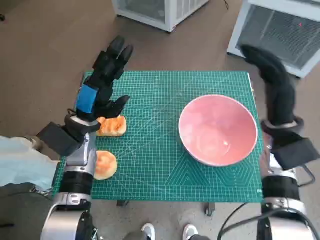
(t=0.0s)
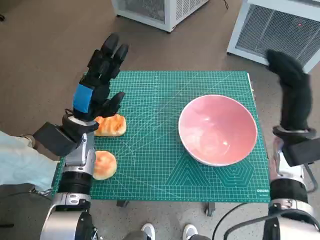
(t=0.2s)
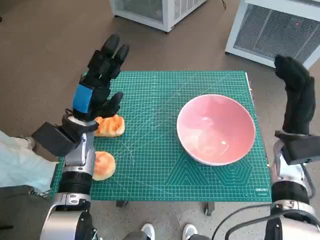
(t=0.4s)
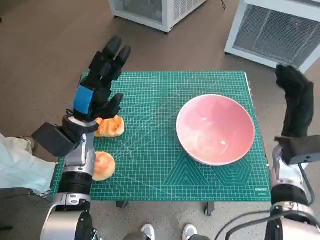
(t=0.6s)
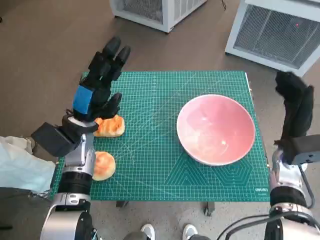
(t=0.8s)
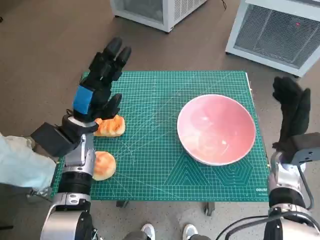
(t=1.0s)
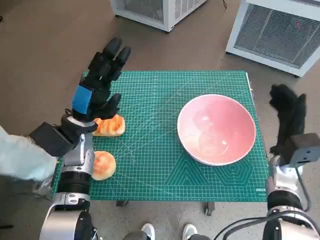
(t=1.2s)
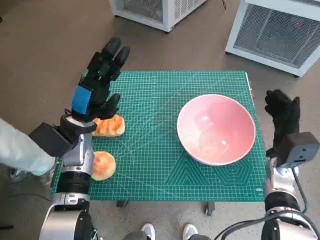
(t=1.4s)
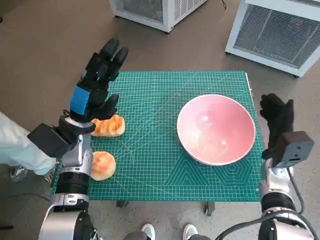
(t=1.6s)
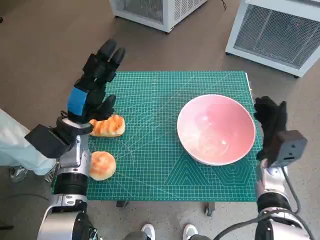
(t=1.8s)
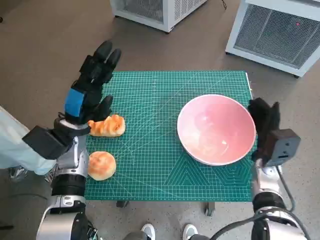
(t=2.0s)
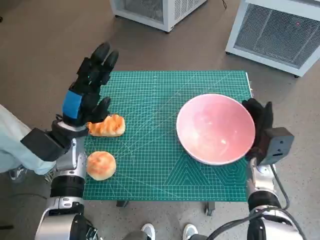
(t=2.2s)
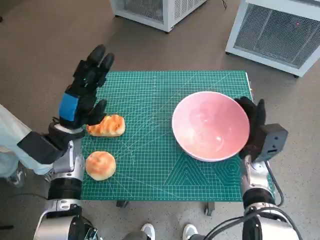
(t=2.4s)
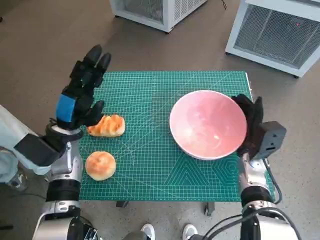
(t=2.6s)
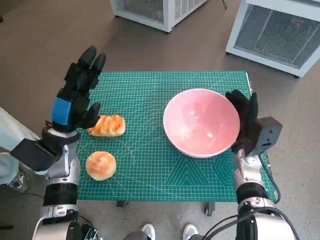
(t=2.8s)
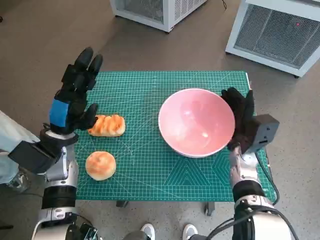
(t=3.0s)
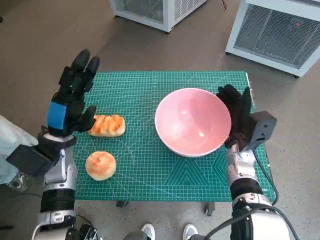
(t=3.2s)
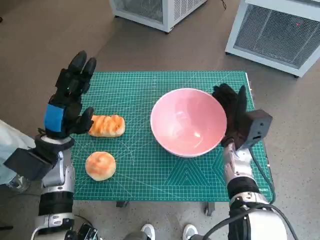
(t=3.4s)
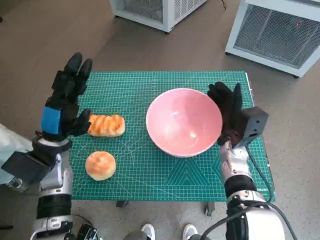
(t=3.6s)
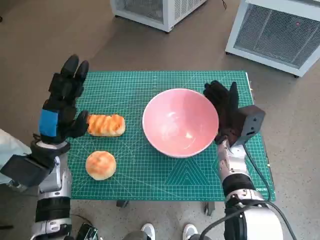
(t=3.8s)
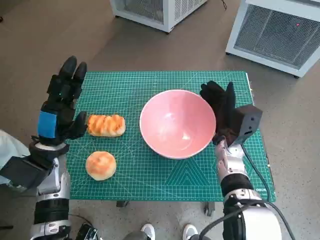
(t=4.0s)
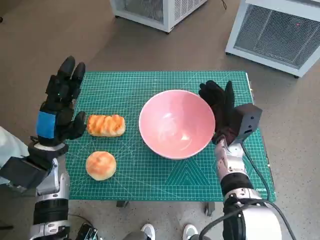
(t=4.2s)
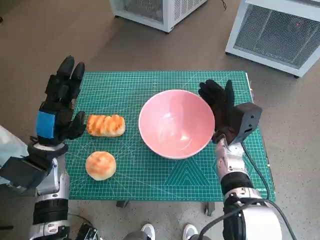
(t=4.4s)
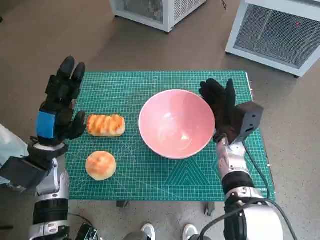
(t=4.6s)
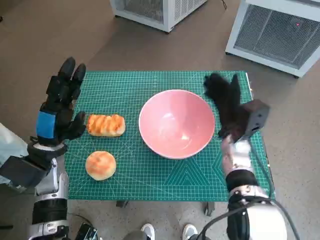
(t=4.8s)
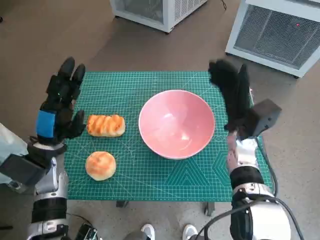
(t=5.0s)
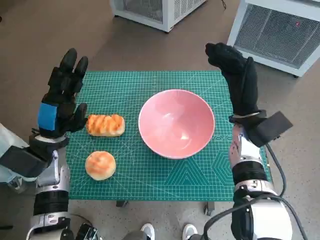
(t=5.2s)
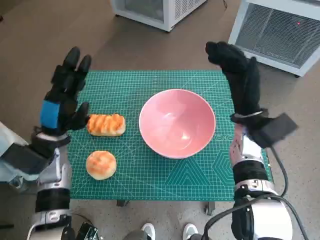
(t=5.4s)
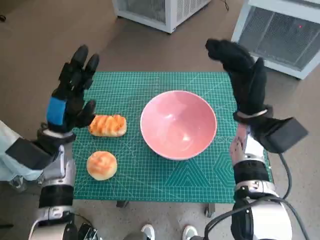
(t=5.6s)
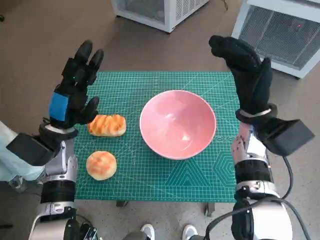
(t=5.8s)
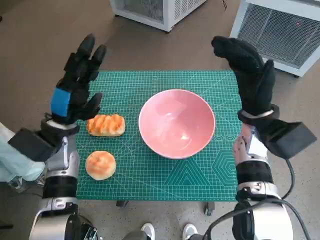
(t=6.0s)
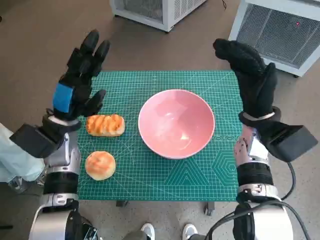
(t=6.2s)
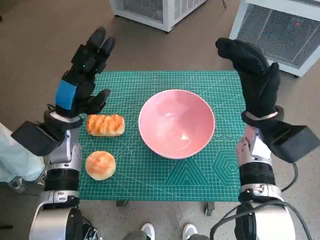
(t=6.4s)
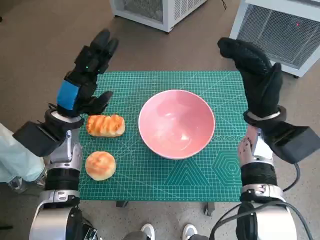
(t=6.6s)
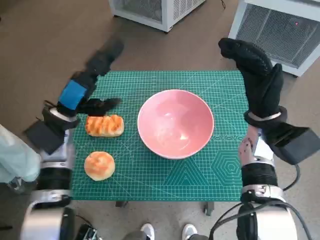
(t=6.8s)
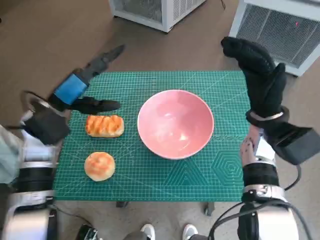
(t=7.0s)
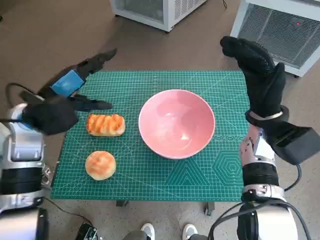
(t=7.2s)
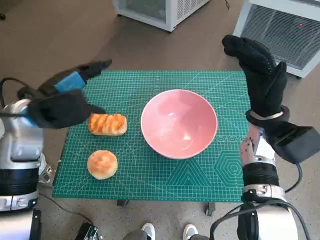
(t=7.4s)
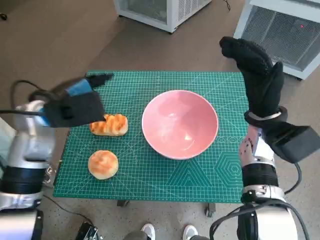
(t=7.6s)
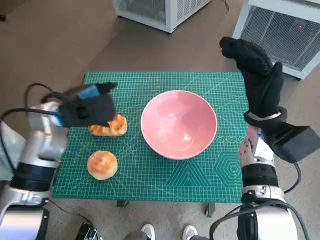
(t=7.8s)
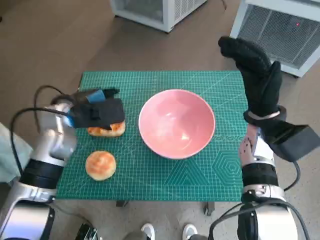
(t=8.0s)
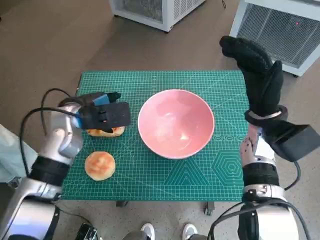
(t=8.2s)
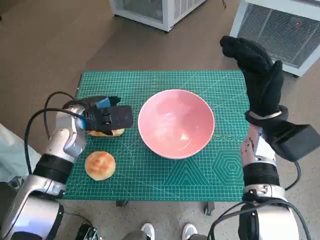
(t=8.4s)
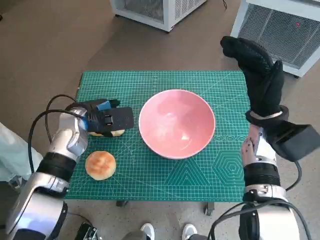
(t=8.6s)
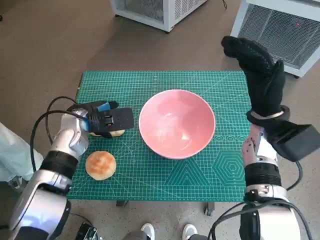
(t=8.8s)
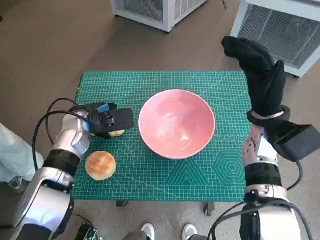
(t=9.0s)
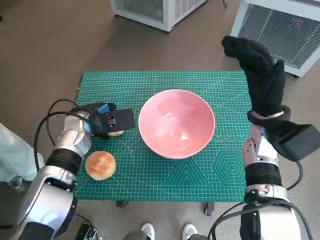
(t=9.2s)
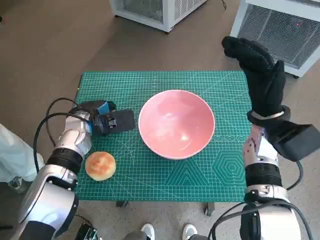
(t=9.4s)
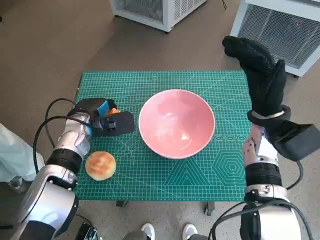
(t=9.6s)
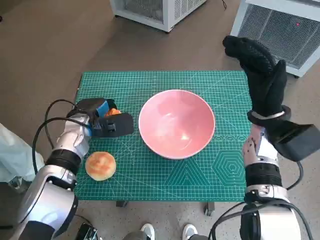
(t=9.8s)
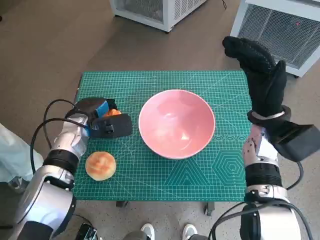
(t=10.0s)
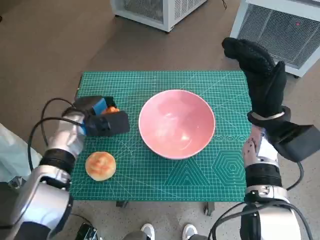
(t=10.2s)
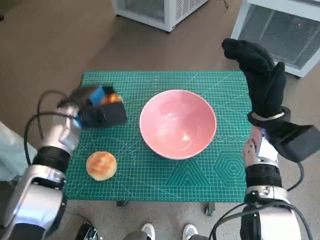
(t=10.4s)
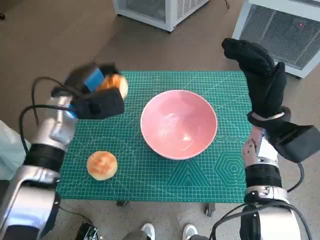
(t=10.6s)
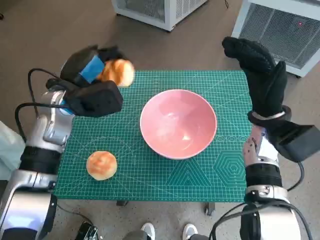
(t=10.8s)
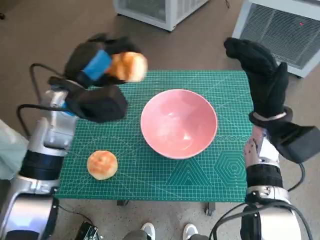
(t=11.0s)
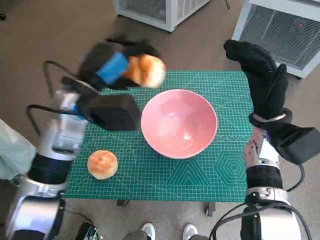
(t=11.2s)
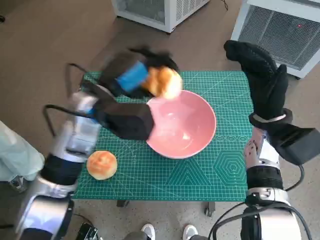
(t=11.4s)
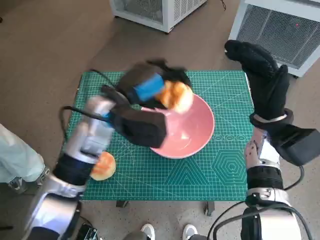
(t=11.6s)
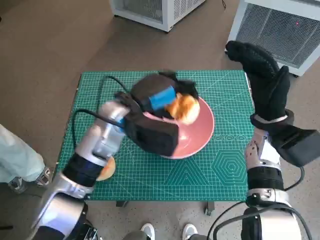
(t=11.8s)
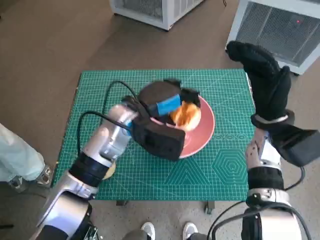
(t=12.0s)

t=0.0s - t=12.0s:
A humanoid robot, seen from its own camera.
Task of the whole recording: Push the bowl into the center of the table and put the bread into the bowl.
Step, t=0.0s - t=4.8s: Move the pink bowl to the center of table with right hand.
Step, t=5.0s - t=9.2s: Grasp the long bread with left hand.
t=0.0s - t=1.6s: The right hand heads downward, covering roughly 10 cm.
t=1.6s - t=3.0s: The right hand moves to the left, about 5 cm.
t=4.4s - t=6.0s: The right hand goes roughly 10 cm upward.
t=6.0s - t=7.6s: The left hand travels upward by approximately 10 cm.
t=7.6s - t=9.0s: The left hand goes some 10 cm downward.
t=9.0s - t=10.4s: There are only small adjustments of the hands.
t=10.4s - t=12.0s: The left hand heads to the right, covering about 15 cm.

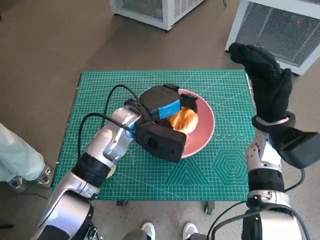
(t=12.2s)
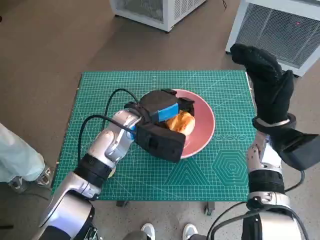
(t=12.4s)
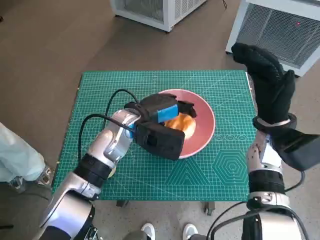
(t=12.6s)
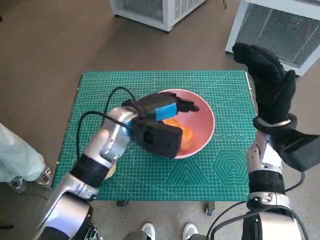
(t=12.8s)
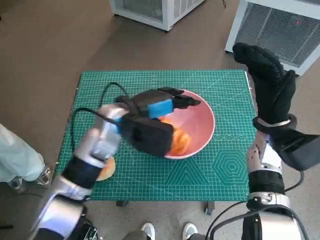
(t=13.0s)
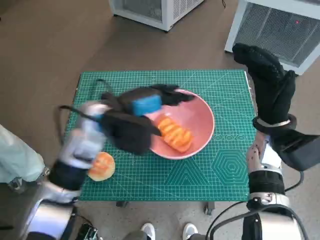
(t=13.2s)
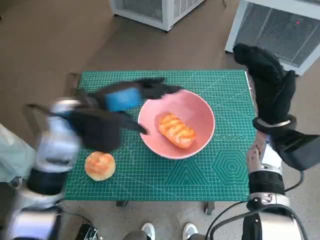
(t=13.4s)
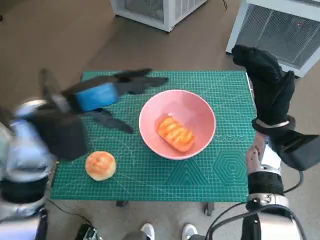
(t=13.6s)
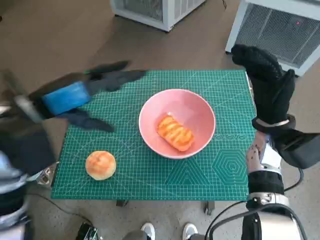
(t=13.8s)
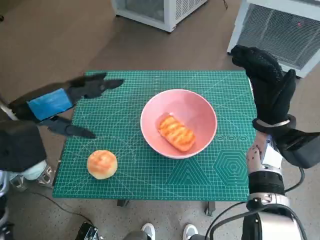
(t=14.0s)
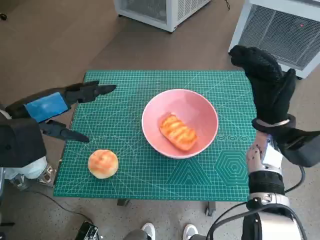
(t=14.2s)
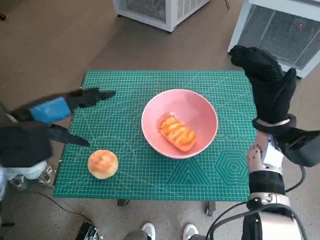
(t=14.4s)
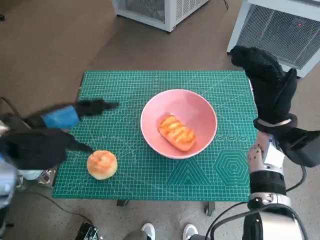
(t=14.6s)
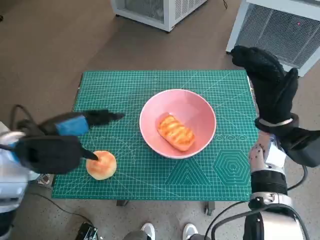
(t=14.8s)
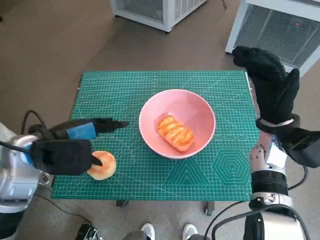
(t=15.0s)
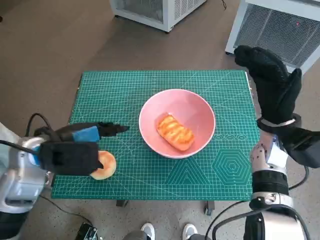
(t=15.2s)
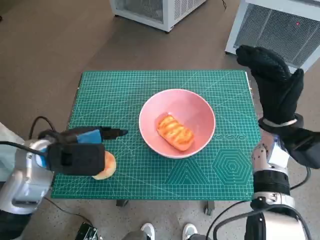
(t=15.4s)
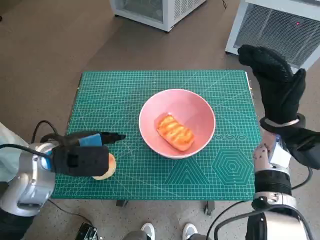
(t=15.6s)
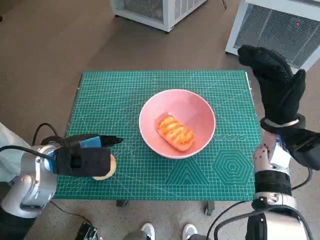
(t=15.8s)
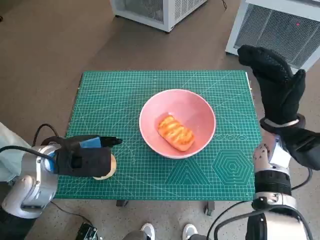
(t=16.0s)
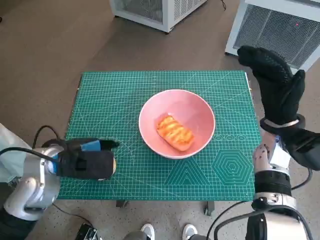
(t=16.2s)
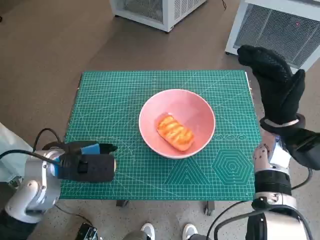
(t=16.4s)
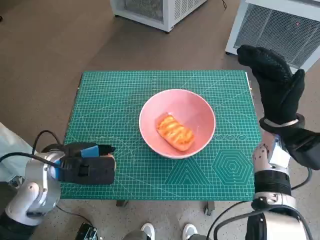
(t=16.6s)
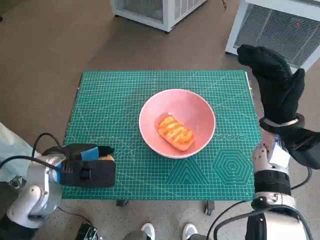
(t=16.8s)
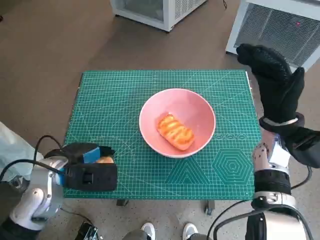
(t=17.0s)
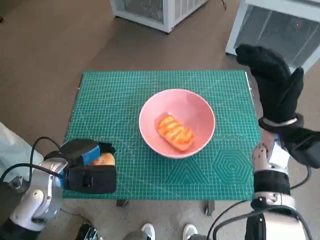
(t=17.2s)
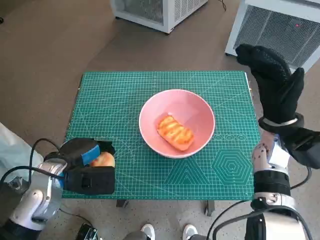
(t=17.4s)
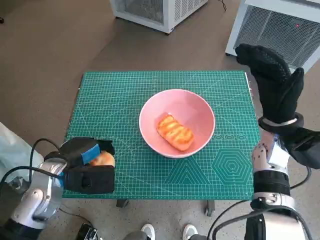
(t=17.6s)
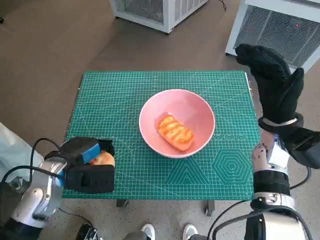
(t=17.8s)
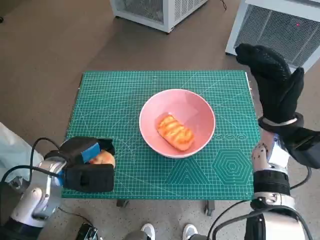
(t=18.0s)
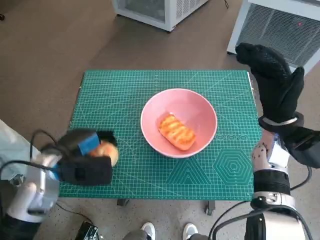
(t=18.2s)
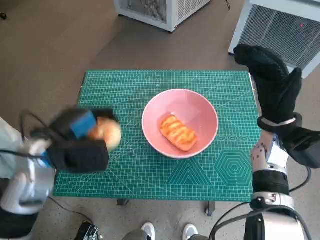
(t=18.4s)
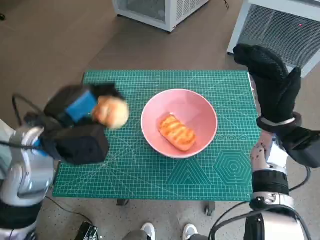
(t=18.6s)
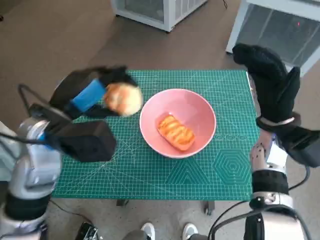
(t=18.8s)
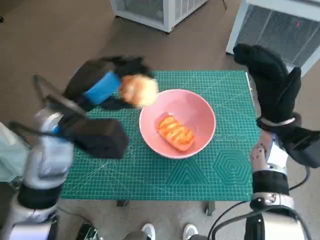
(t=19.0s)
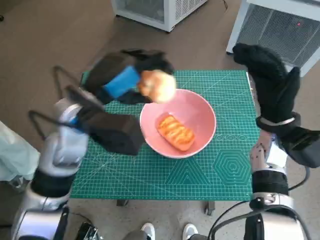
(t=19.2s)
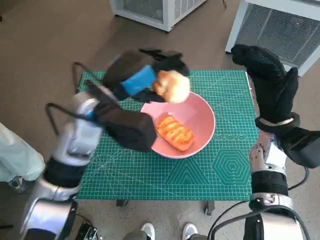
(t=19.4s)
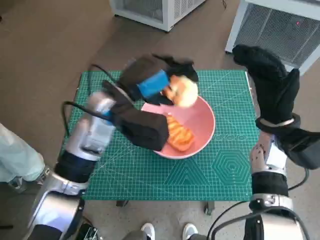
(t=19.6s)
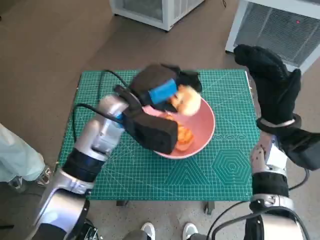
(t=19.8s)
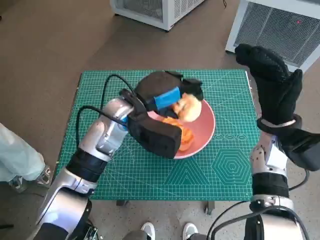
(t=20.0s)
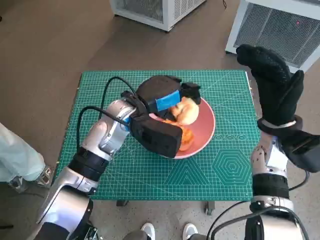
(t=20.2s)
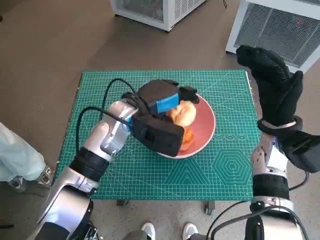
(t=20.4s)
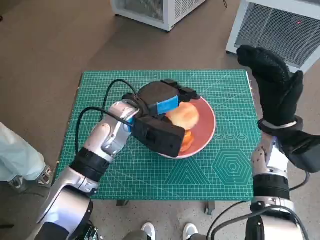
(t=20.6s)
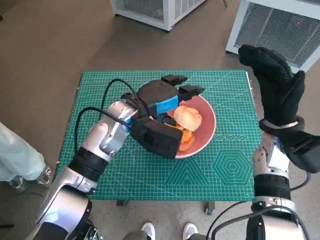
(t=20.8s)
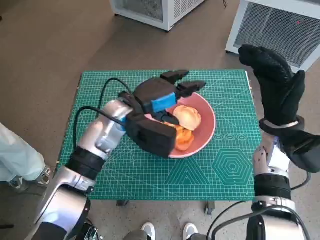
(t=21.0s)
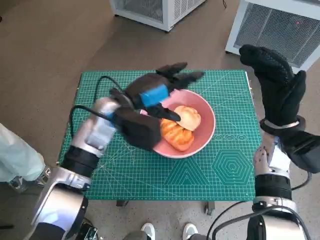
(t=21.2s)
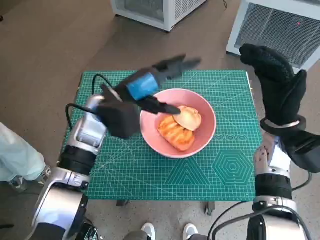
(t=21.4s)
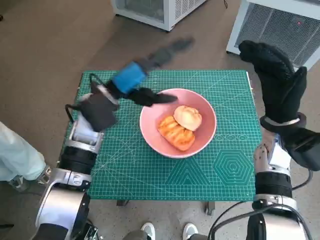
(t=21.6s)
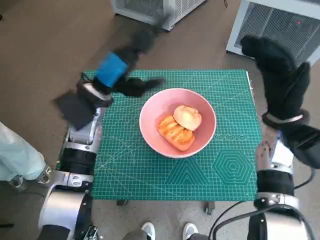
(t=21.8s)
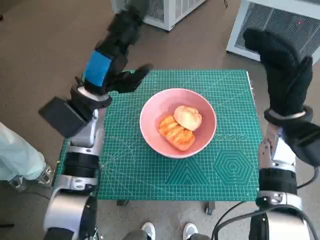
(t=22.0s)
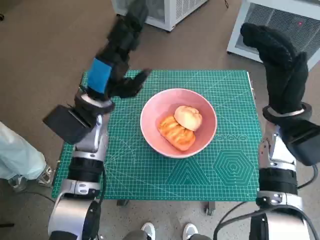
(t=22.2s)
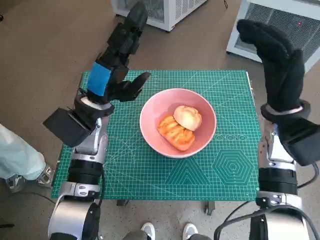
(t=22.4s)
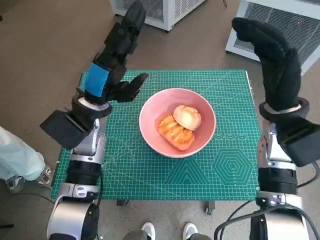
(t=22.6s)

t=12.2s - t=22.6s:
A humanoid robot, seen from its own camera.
Task of the whole recording: Push the bowl into the center of the table and put the bread into the bowl.
Step, t=13.4s - t=17.0s: Grasp the round bread with left hand.
Step, t=17.2s - t=21.2s: Place the round bread in pink bowl with left hand.
t=12.2s - t=13.6s: The left hand goes about 15 cm to the left and upward.
t=13.6s - t=15.2s: The left hand moves downward, about 5 cm.
t=16.6s - t=18.2s: There are only small adjustments of the hands.
t=18.2s - t=19.6s: The left hand moves to the right, upward and forward, some 15 cm.
